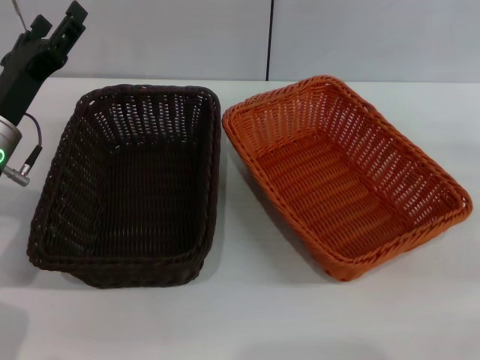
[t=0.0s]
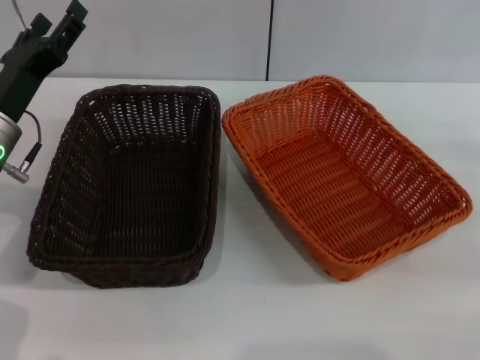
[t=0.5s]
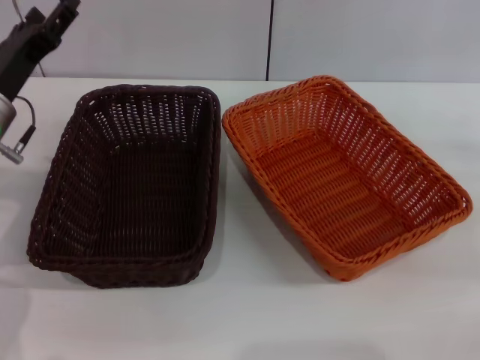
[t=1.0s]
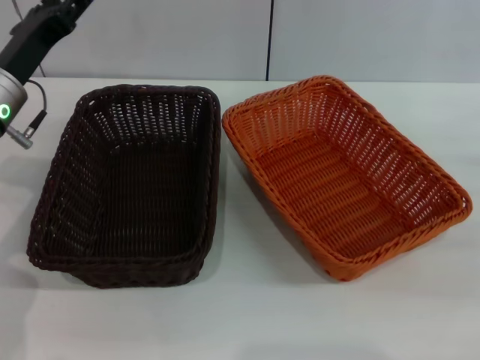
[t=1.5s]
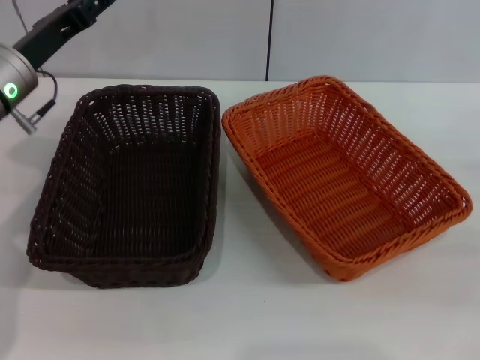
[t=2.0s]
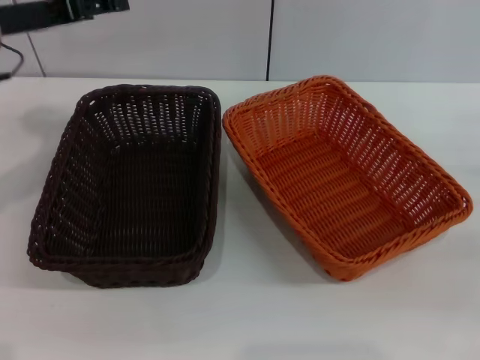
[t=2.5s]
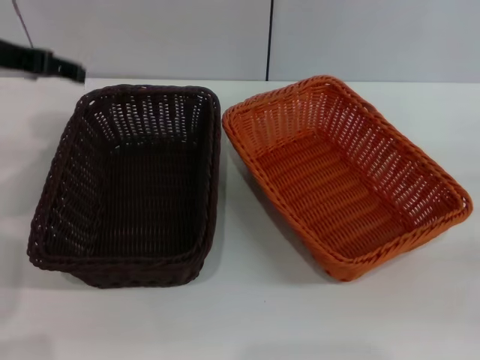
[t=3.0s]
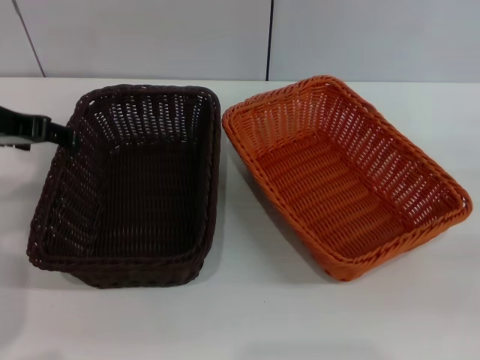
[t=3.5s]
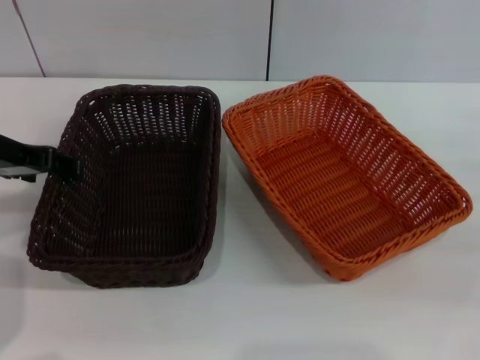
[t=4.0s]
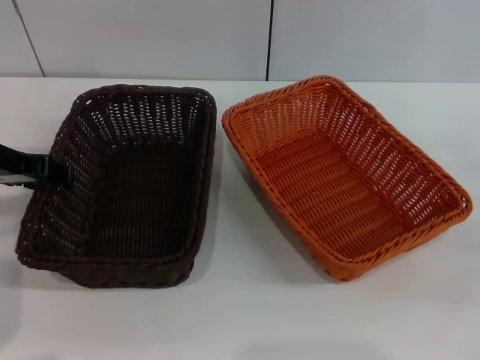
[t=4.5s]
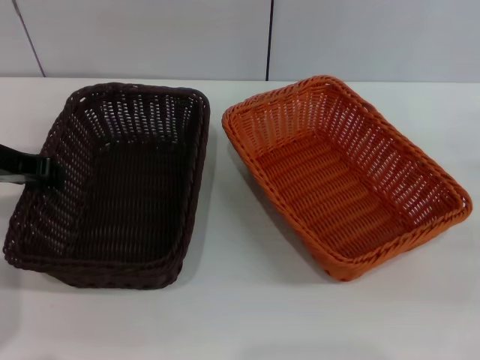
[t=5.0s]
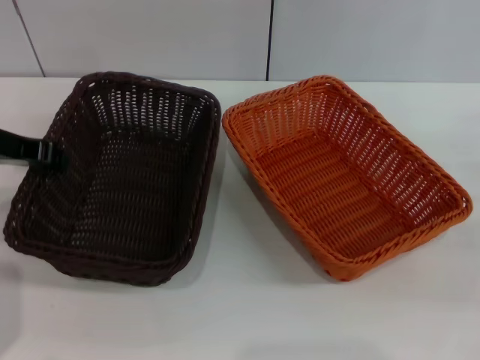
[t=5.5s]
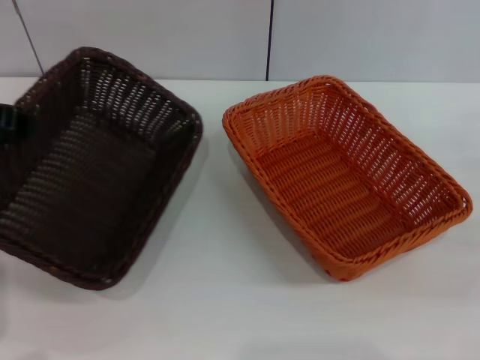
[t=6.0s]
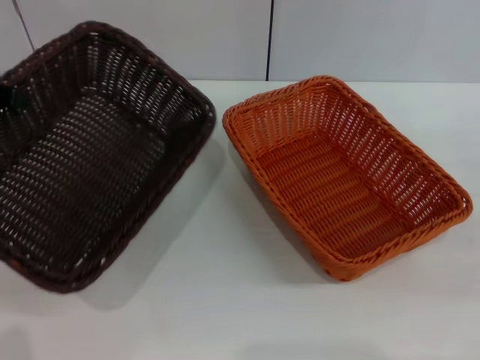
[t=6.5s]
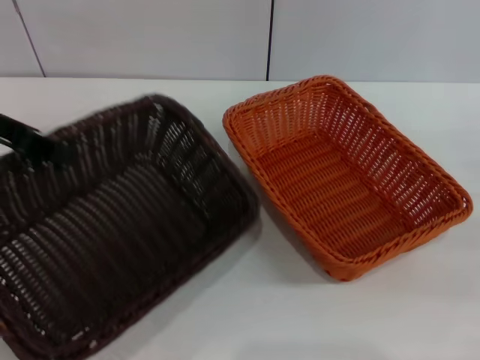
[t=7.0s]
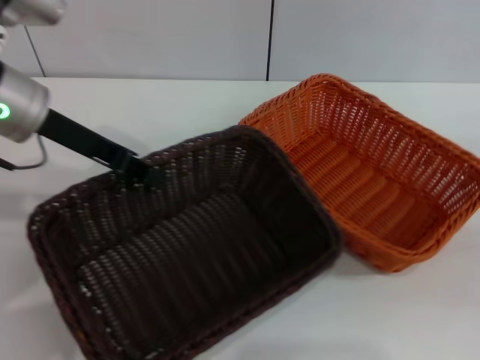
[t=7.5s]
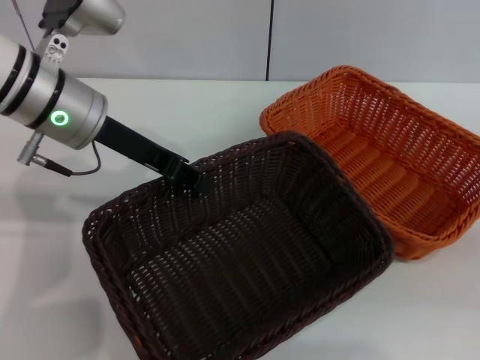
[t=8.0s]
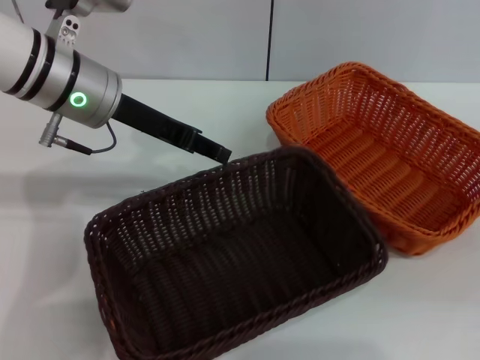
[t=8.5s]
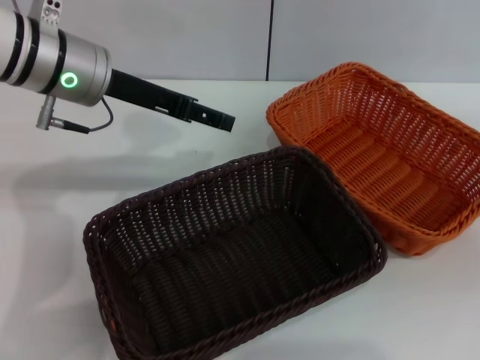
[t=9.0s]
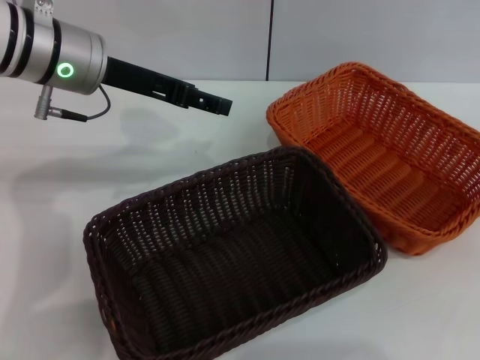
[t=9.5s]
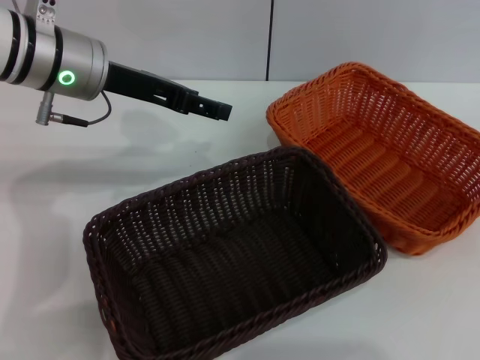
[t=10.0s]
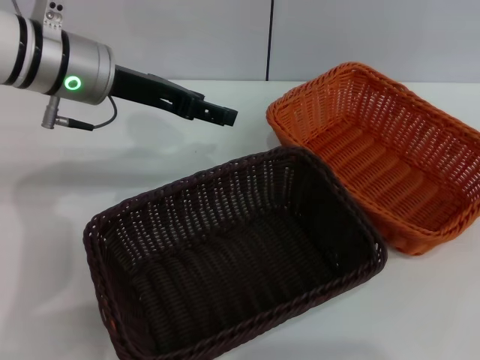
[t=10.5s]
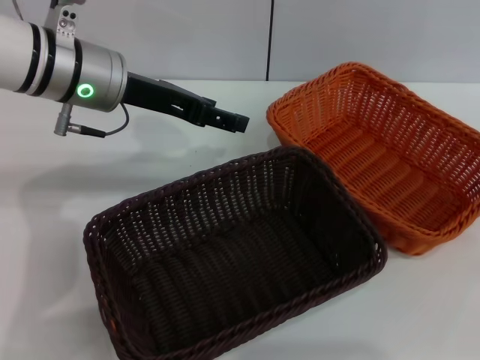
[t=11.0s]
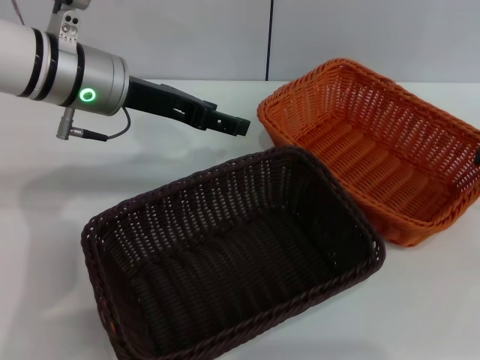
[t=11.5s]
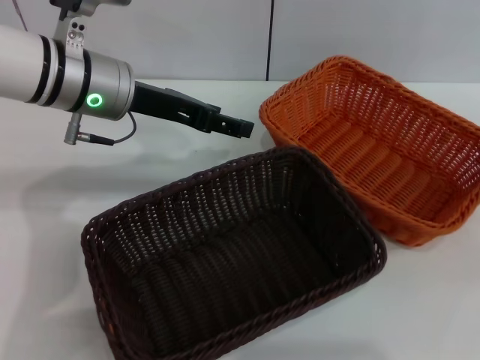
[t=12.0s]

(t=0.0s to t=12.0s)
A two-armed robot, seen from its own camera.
Step, t=0.0s - t=5.5s: Pick up the dark basket with the left gripper.
Step, t=6.0s - t=8.0s: Place the dark basket in the center of view with the left gripper.
t=0.0s - t=2.0s: The left gripper travels forward by some 5 cm.
t=2.0s - t=4.0s: The left gripper travels upward by about 5 cm.
t=4.0s - t=6.0s: The left gripper closes up.
t=6.0s - t=8.0s: The left gripper heads to the right, covering some 10 cm.
t=8.0s - t=10.0s: The left gripper opens up; the right gripper shifts about 15 cm upward.
t=10.0s - t=12.0s: The right gripper goes approximately 10 cm downward, to the left and forward, and closes.

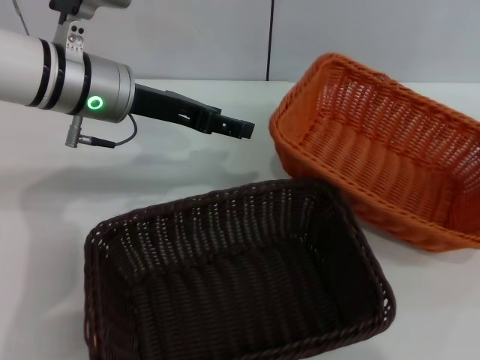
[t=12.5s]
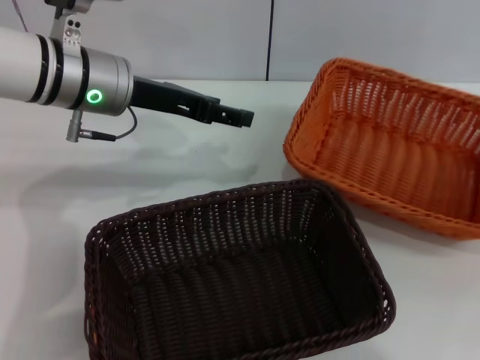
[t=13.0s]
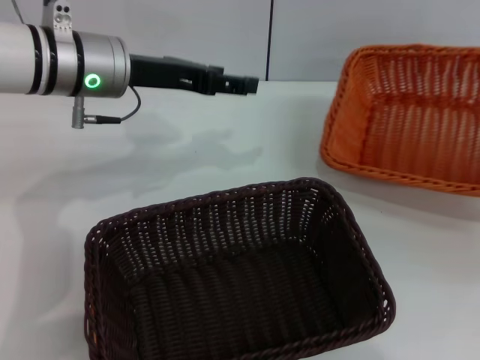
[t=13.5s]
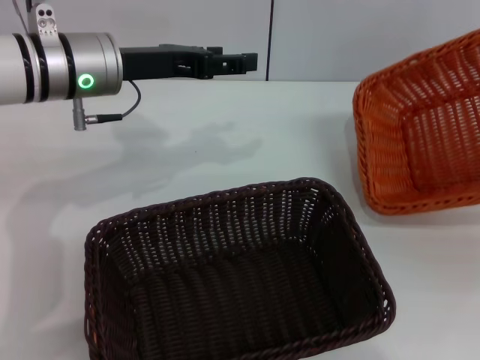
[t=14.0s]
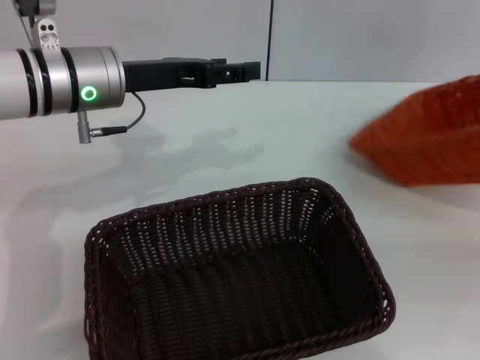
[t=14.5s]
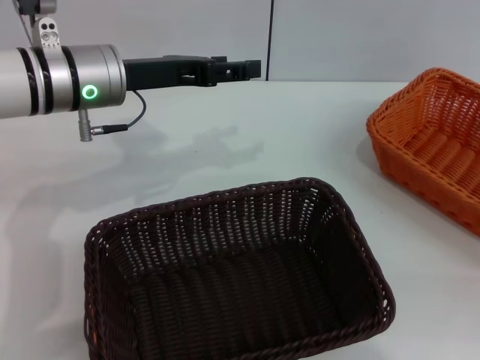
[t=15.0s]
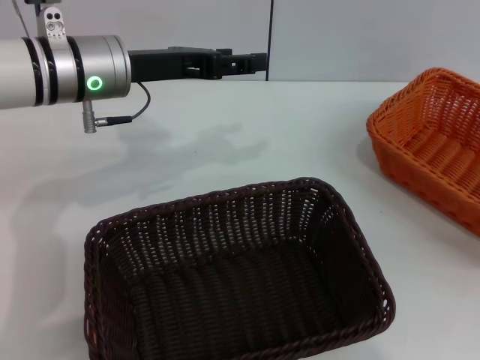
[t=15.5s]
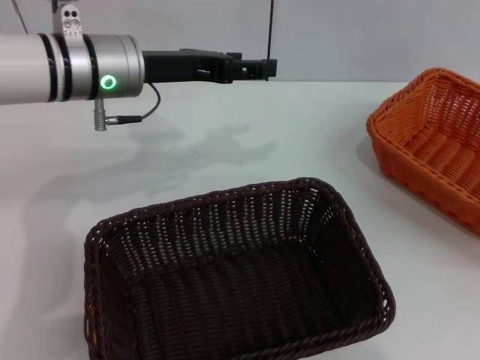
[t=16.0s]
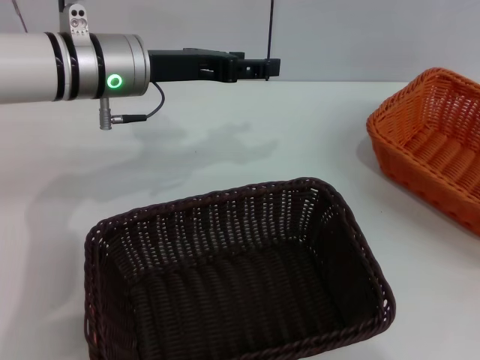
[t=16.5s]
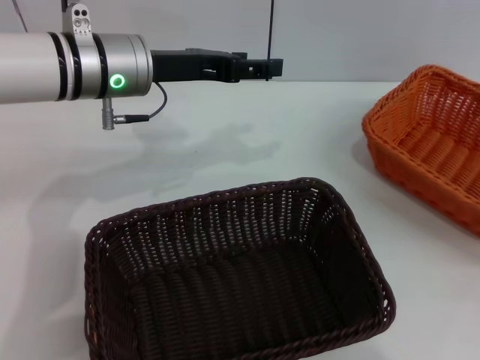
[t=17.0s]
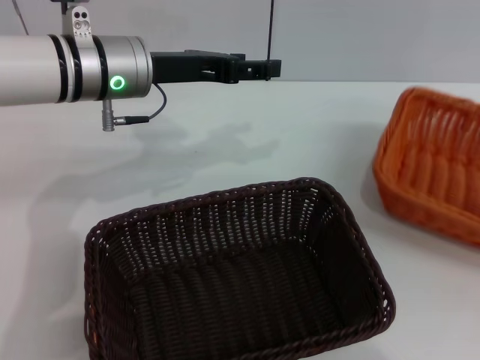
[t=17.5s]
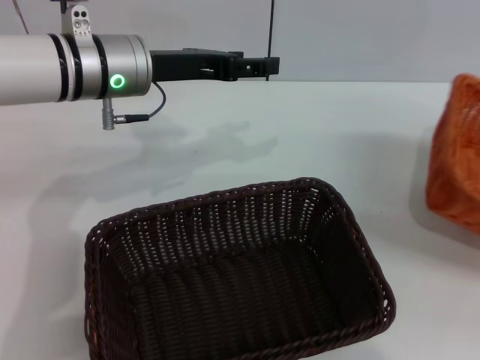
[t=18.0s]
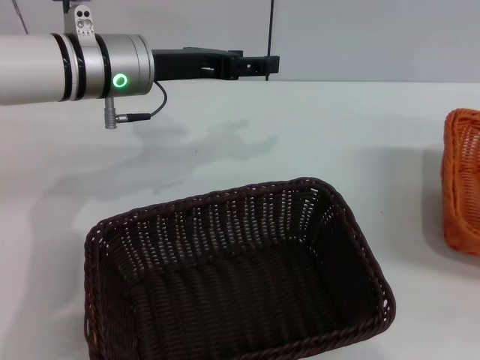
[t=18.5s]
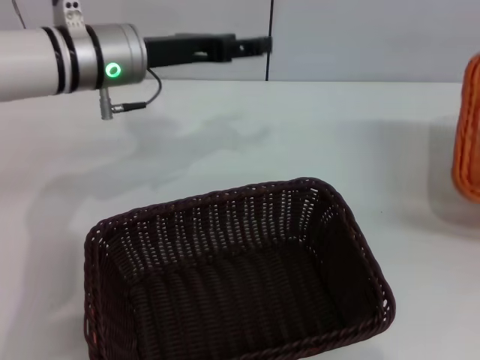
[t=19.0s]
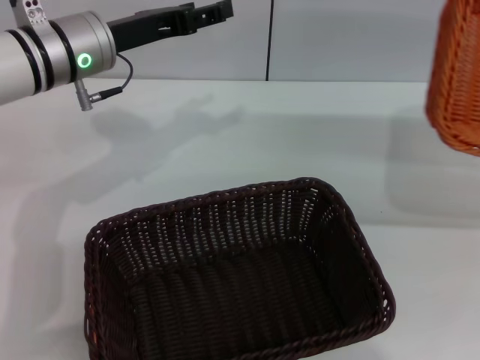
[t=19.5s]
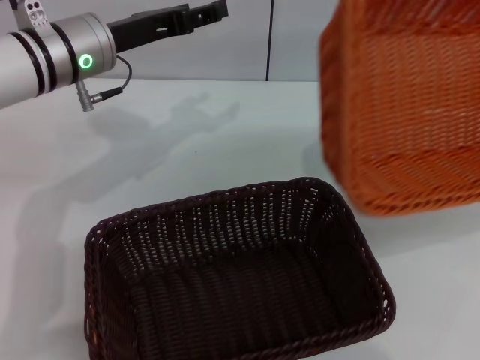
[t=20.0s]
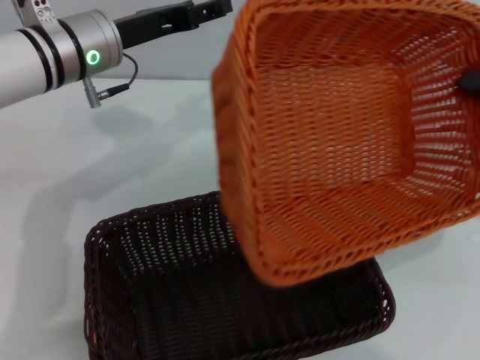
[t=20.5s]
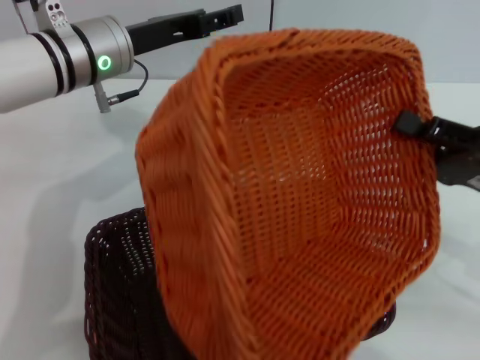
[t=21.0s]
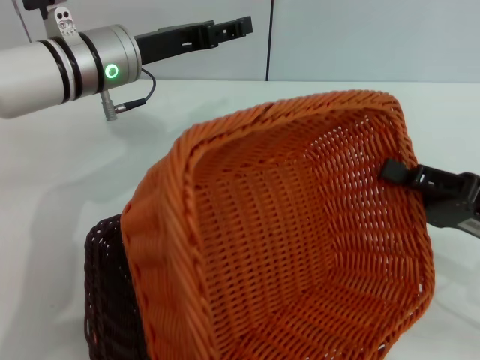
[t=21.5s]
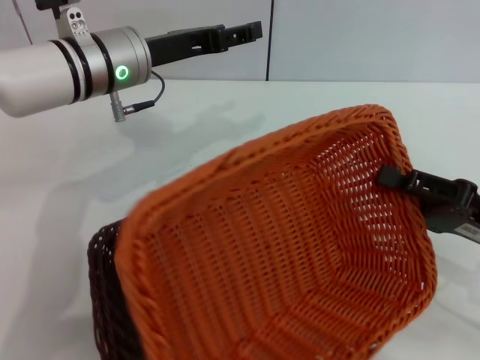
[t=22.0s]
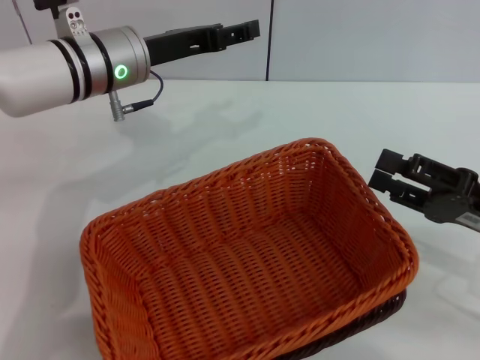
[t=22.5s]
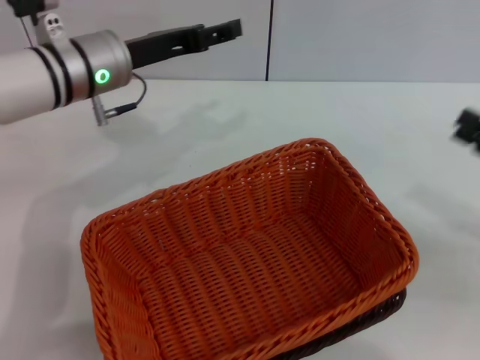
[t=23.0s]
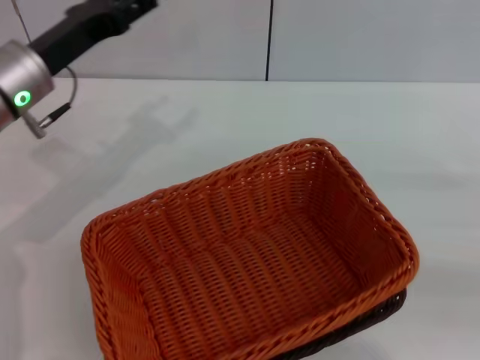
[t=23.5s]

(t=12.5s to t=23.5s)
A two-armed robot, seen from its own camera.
Step, t=12.5s - t=22.0s: Place the light basket on the dark basket with the right gripper.
t=12.5s - t=14.5s: The right gripper goes some 5 cm backward.
t=14.5s - t=16.0s: The right gripper travels to the right by about 10 cm, and opens.
t=16.0s - t=18.0s: The right gripper heads downward, covering some 5 cm, and closes its fingers.
t=18.0s - t=20.0s: The right gripper shifts about 10 cm to the left and upward.
t=20.0s - t=21.5s: The right gripper shifts roughly 15 cm to the left and downward.
t=21.5s - t=23.5s: The left gripper shifts some 5 cm to the left, while the right gripper heads to the right, covering approximately 10 cm, and opens its fingers.
